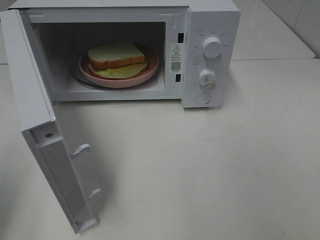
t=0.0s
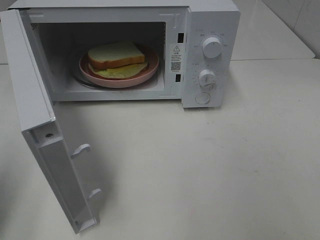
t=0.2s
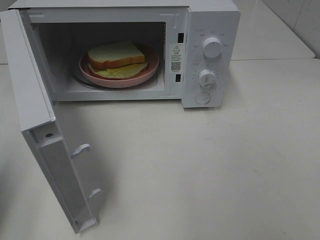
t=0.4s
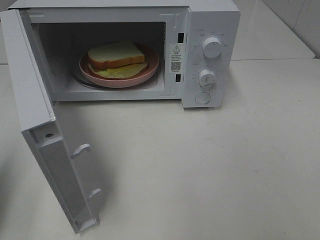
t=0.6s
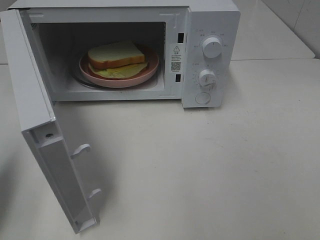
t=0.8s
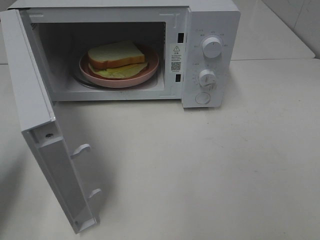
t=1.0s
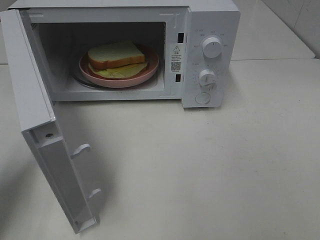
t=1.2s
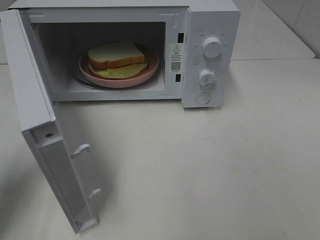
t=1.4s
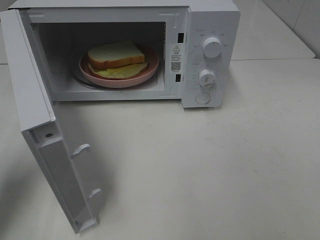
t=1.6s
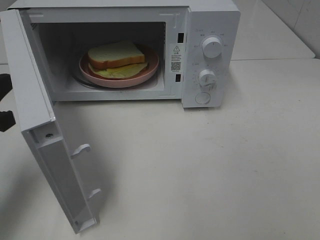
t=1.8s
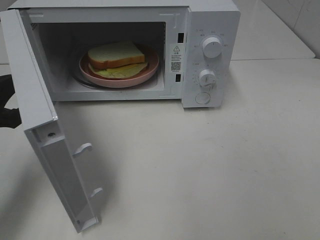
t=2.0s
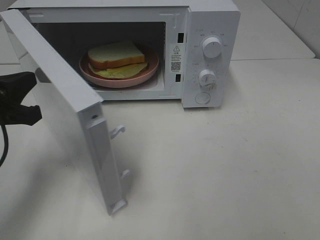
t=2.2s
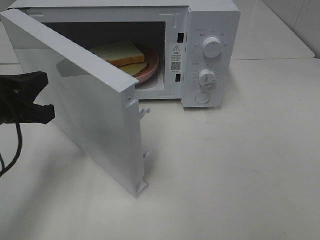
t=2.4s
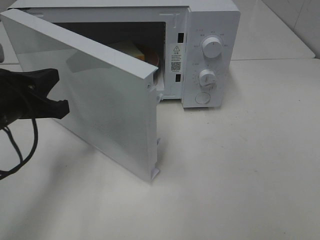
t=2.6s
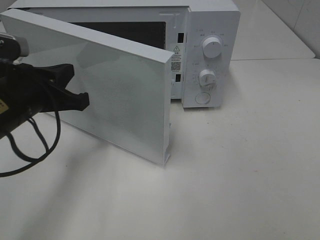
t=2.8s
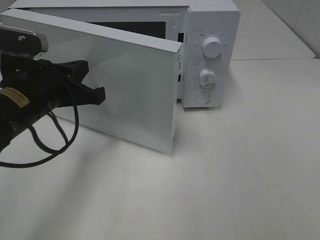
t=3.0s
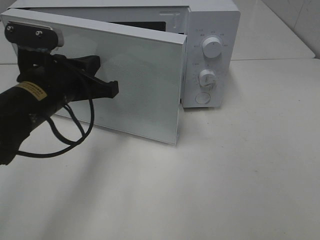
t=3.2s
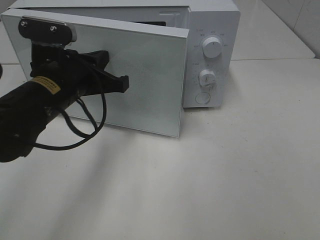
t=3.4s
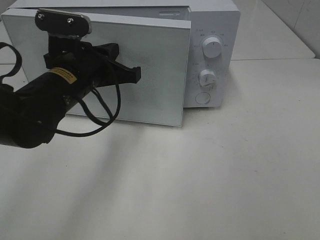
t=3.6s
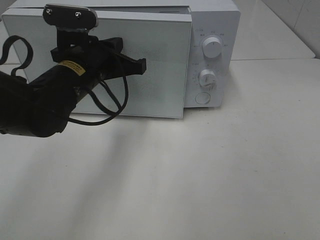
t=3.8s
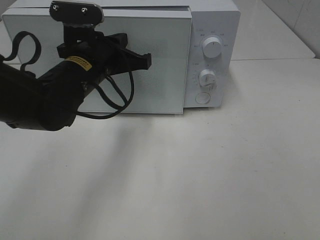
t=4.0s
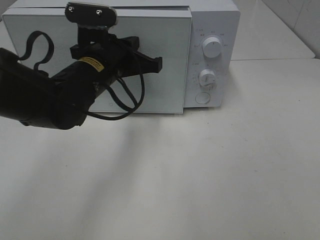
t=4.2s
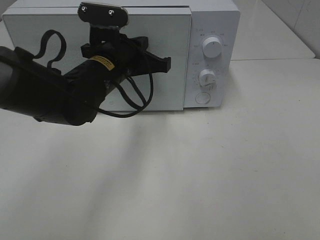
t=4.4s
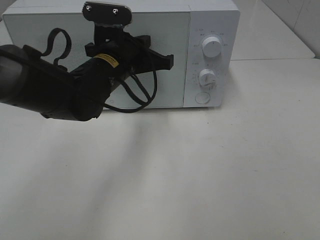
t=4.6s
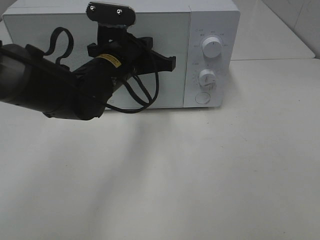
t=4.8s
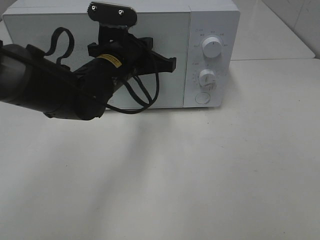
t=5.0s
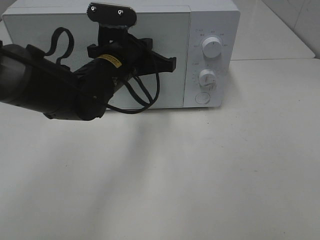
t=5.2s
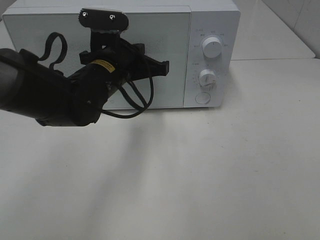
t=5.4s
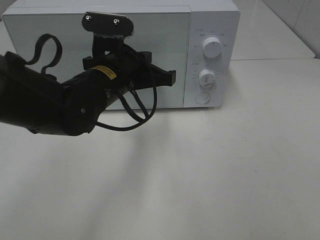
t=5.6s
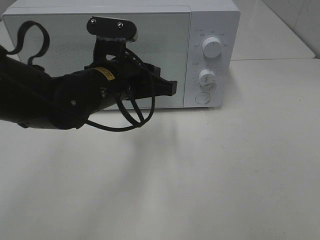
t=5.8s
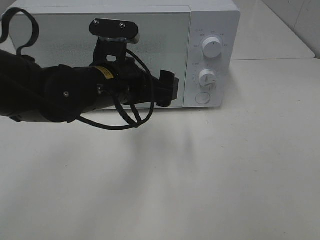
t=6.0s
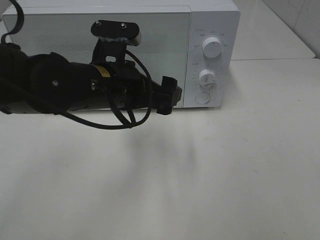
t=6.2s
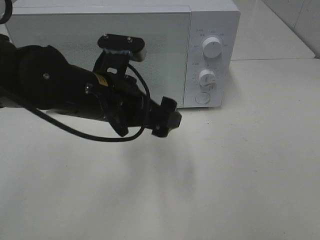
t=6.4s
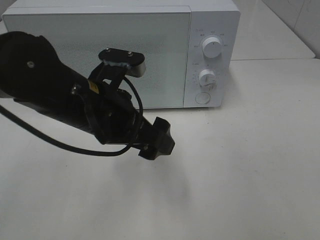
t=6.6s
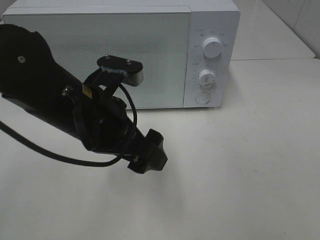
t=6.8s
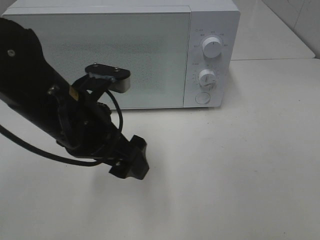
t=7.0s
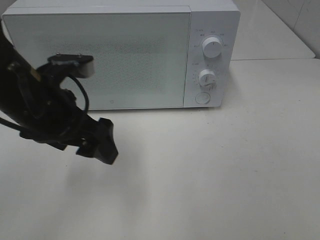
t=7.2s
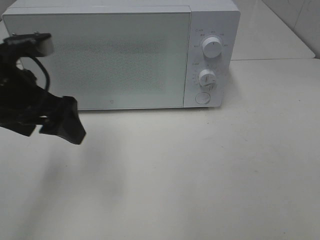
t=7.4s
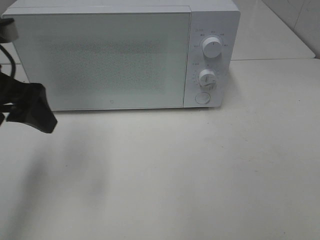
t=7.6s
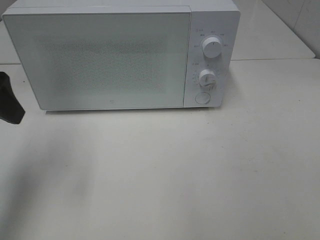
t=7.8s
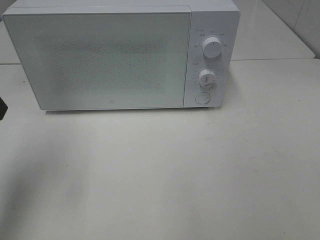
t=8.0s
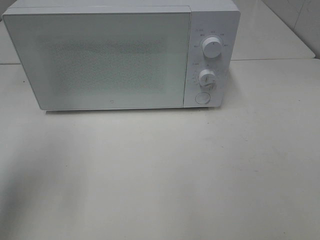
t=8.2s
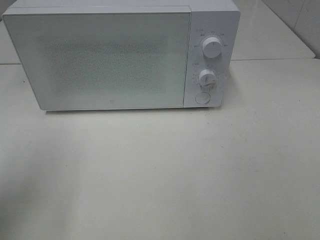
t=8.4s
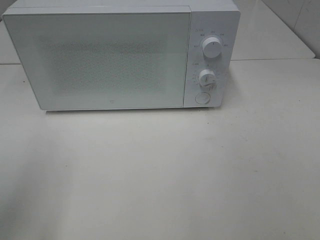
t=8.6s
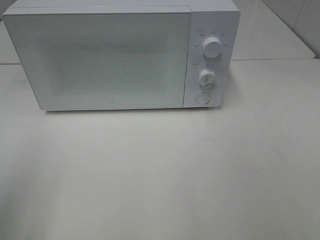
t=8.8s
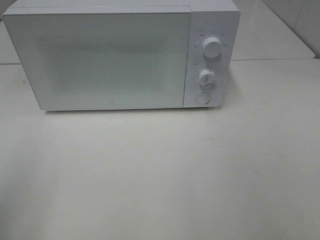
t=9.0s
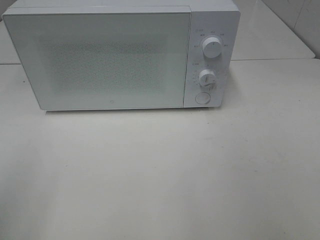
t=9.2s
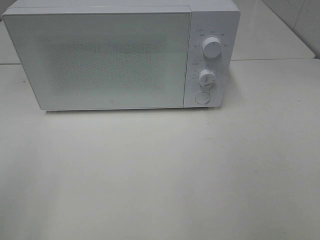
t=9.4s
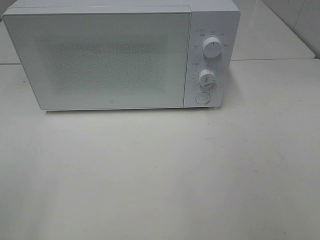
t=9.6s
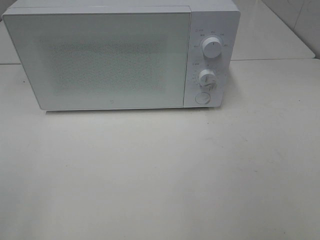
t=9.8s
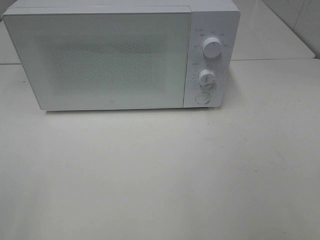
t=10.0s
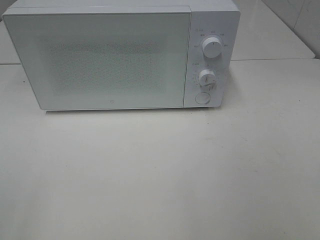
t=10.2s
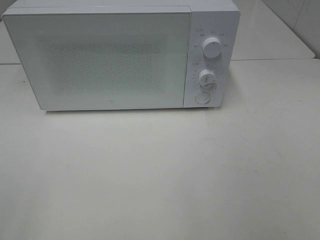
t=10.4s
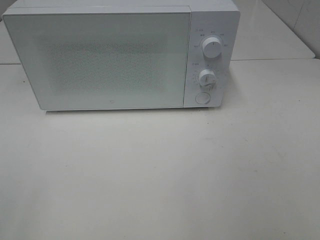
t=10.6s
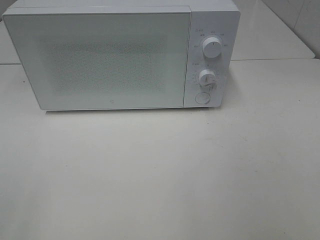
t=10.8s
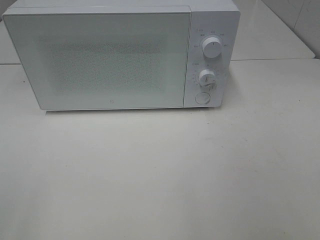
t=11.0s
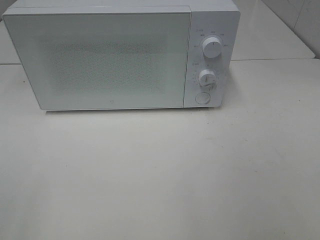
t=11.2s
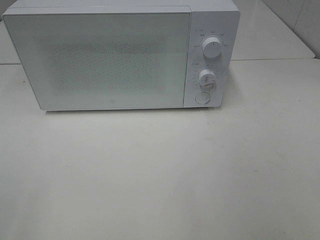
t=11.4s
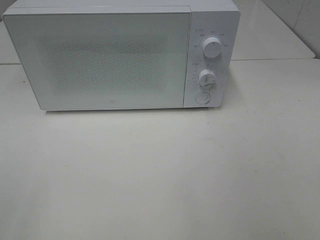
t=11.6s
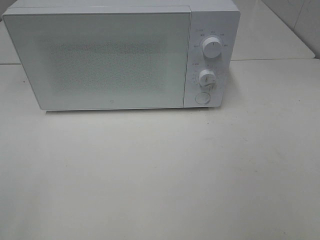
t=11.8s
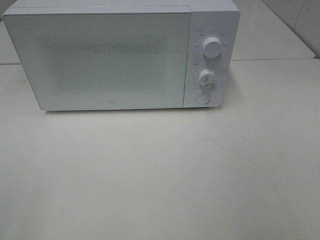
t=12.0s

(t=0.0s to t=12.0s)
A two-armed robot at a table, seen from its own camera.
Task of the whole recording: Heat Sandwich.
Step, t=0.0s - t=6.2s: Left hand: close the microwave door.
t=0.0s - t=1.6s: The left gripper moves forward and downward, roughly 15 cm.
t=1.6s - t=3.0s: The left gripper is displaced to the right and forward by approximately 15 cm.
t=3.0s - t=4.4s: The left gripper shifts about 10 cm to the right and forward.
t=4.4s - t=6.0s: The left gripper shifts some 5 cm backward, and opens.
t=6.0s - t=7.6s: The left gripper moves to the left and upward, about 20 cm.
t=7.6s - t=9.0s: The left gripper shifts some 20 cm backward and to the left.

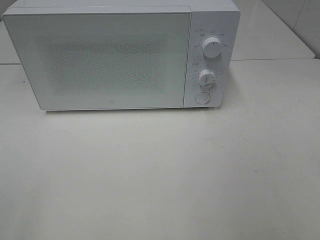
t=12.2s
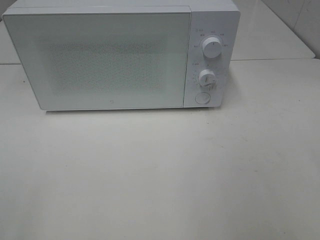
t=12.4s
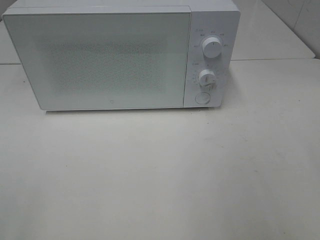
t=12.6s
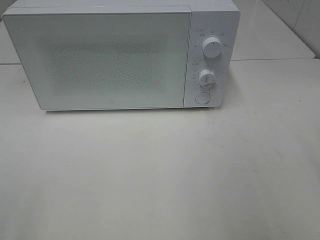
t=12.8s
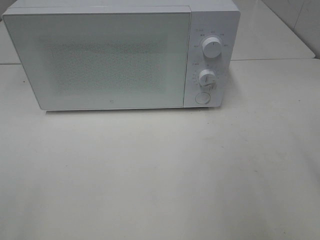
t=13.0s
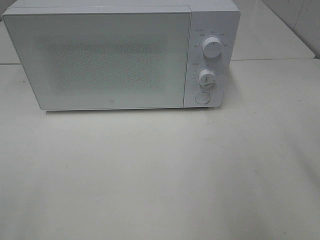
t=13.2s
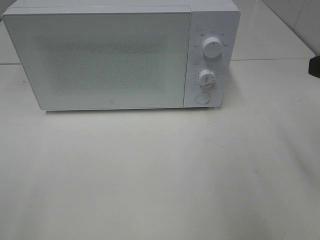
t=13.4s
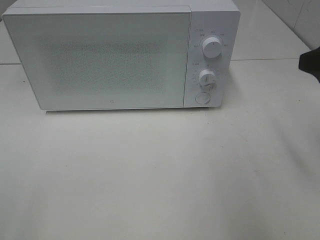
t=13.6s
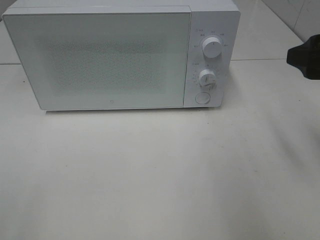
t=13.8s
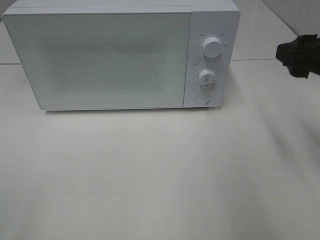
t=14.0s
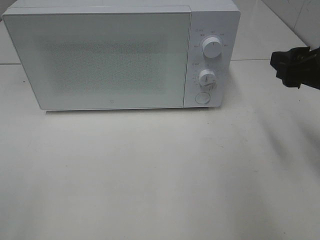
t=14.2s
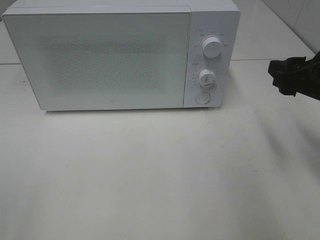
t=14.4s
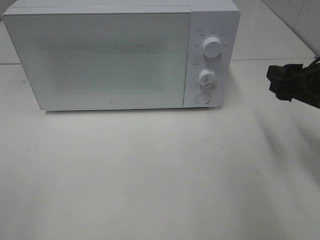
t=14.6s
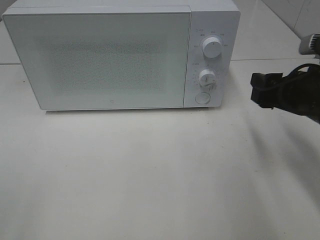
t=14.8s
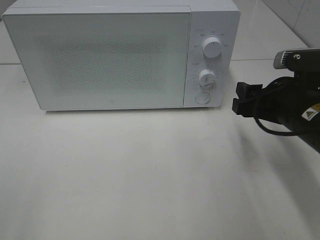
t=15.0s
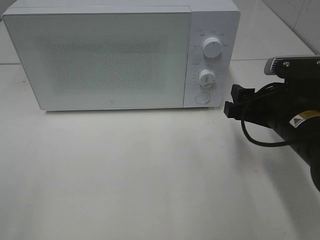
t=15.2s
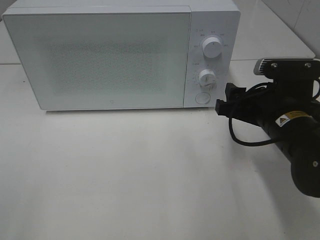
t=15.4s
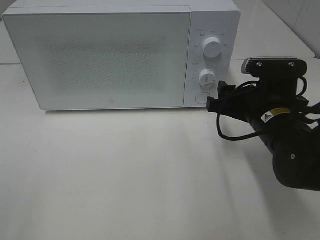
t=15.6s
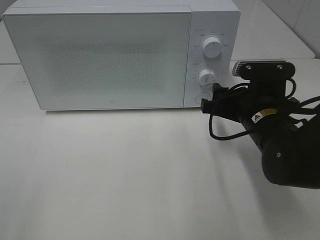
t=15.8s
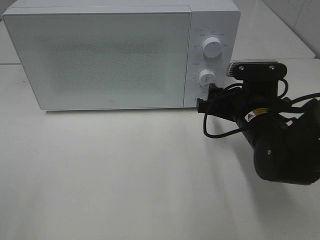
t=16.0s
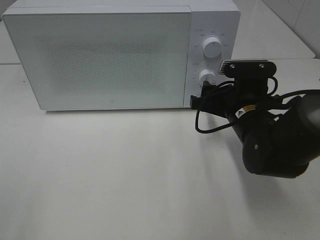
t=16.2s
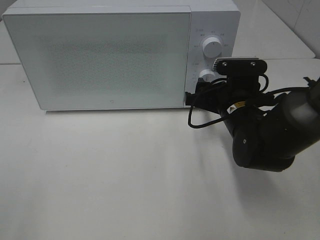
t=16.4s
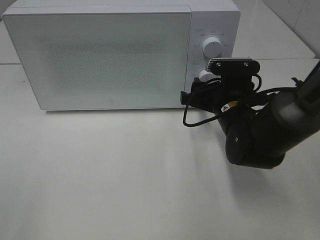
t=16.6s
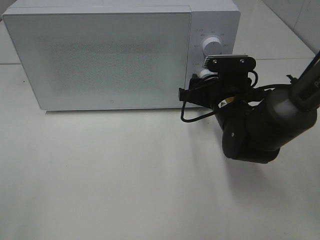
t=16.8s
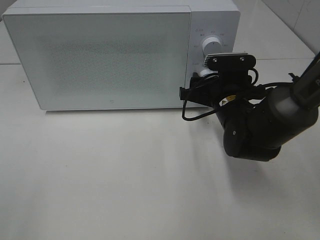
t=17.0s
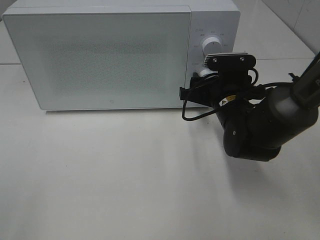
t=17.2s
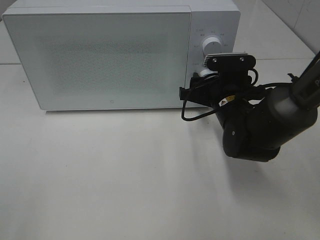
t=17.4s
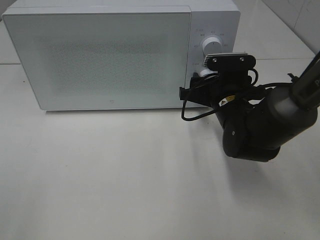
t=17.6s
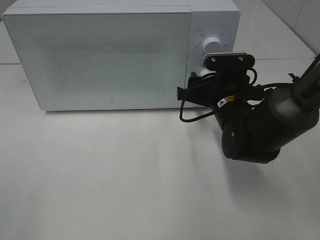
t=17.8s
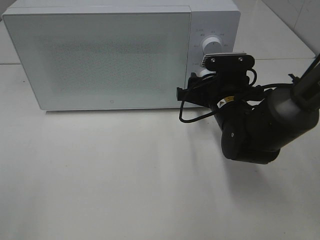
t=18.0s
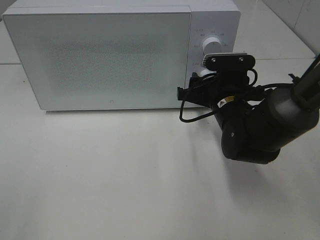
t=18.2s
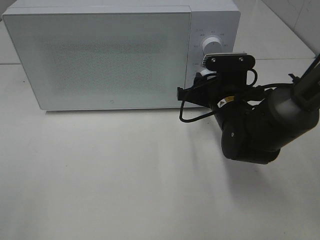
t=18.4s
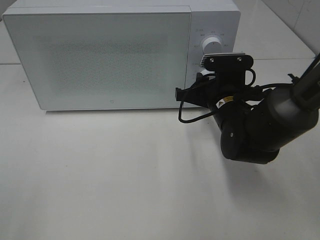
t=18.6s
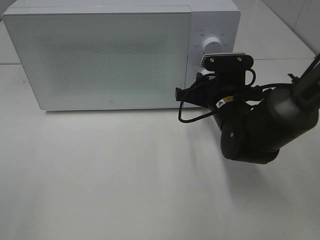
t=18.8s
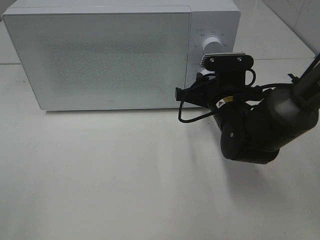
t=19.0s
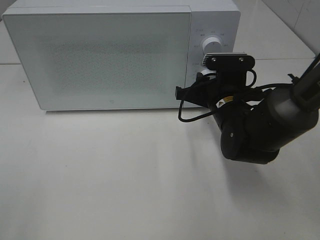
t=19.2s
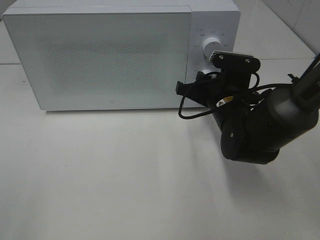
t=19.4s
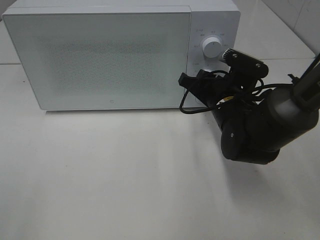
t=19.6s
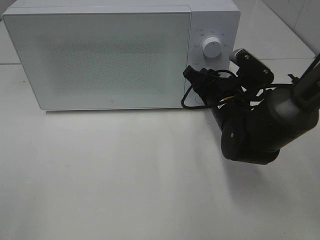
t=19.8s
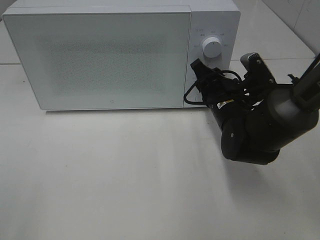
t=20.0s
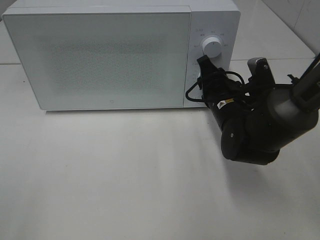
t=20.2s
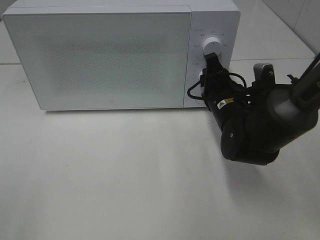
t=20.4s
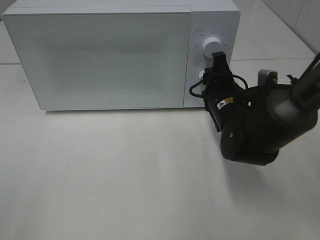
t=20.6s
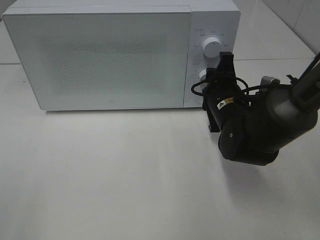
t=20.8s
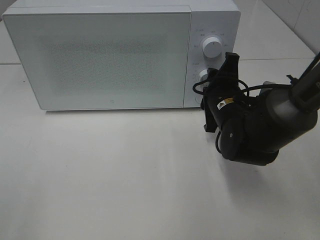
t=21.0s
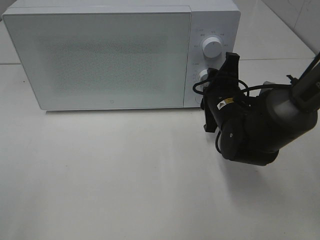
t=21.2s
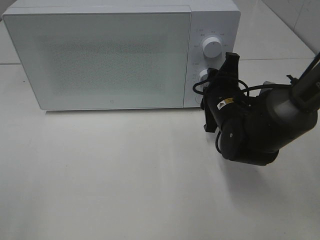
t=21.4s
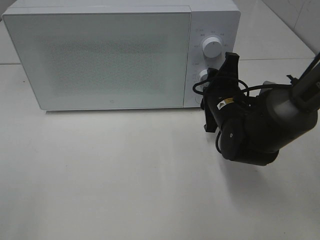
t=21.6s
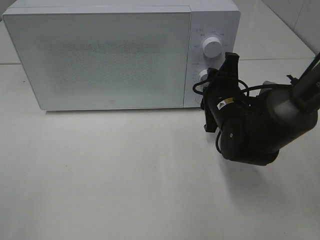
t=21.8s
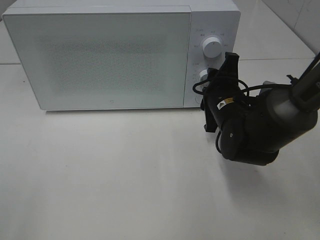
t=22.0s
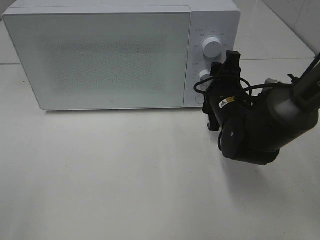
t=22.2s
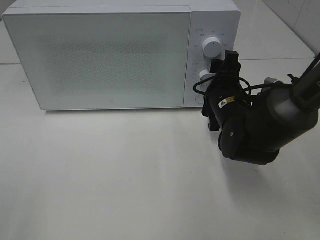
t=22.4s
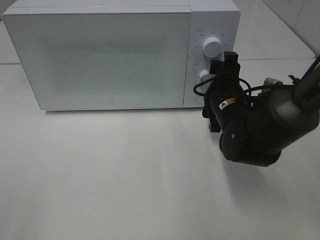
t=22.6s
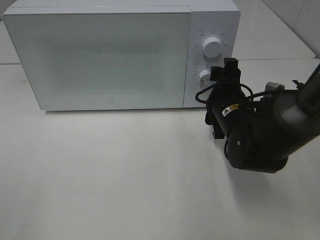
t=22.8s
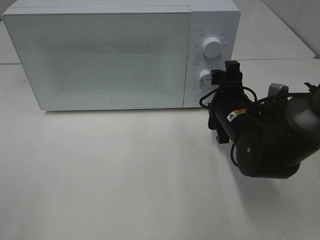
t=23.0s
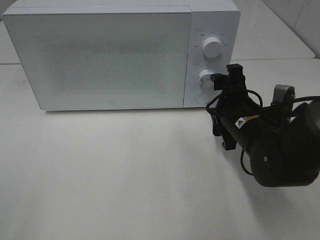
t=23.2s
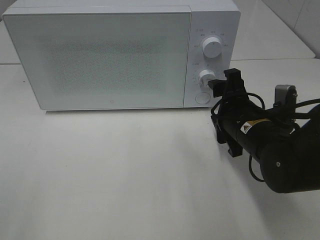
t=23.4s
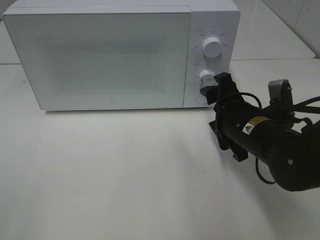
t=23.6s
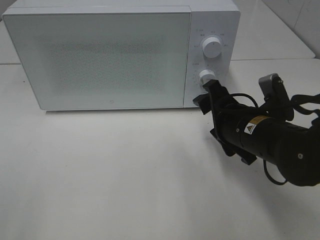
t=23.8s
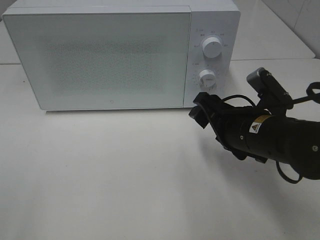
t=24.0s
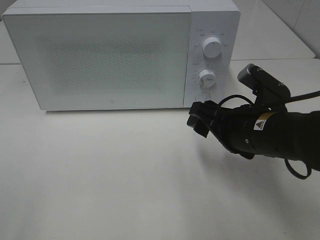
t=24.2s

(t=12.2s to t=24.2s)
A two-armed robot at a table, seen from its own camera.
Task of the whole recording: Heat Sandwich.
Step, t=12.2s - t=22.2s: Right hand: twist timer button.
t=12.2s - t=13.8s: The right gripper travels forward by roughly 20 cm.
t=13.8s - t=15.2s: The right gripper heads downward and to the left, covering about 15 cm.
t=15.2s - t=16.6s: The right gripper shifts roughly 10 cm forward and to the left.
t=16.6s - t=18.2s: Both grippers stay put.
t=21.2s - t=22.6s: The right gripper opens up.
t=22.6s - t=24.2s: The right gripper is displaced backward by roughly 10 cm.
